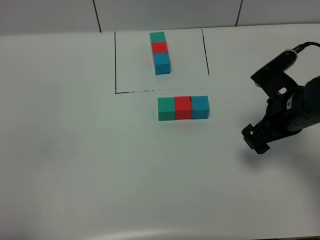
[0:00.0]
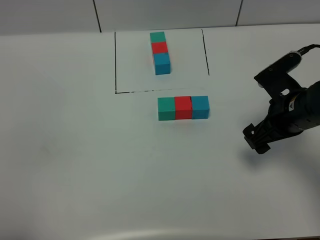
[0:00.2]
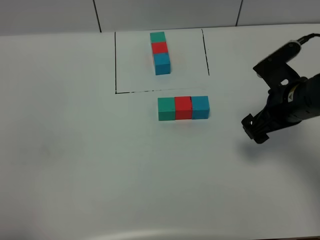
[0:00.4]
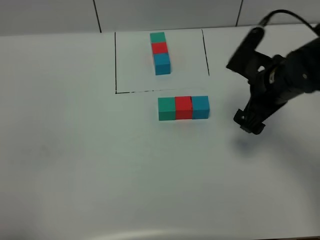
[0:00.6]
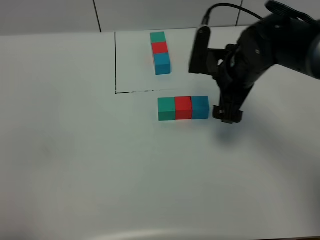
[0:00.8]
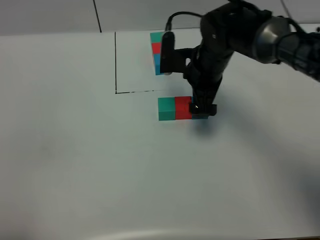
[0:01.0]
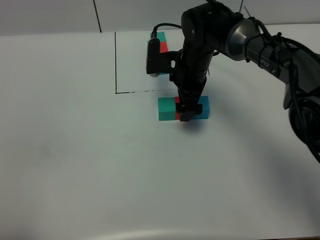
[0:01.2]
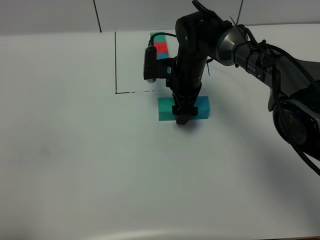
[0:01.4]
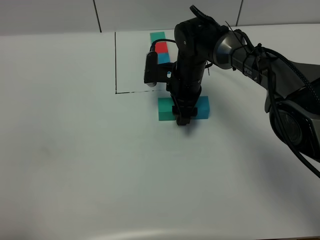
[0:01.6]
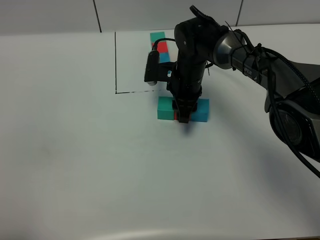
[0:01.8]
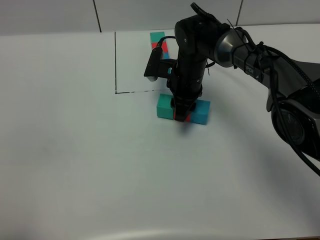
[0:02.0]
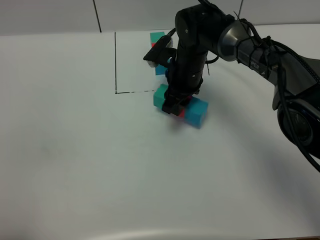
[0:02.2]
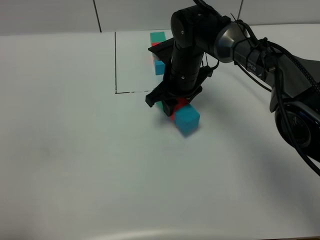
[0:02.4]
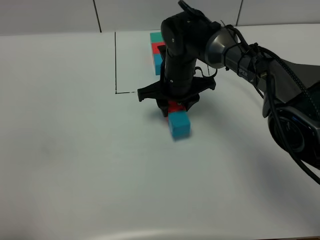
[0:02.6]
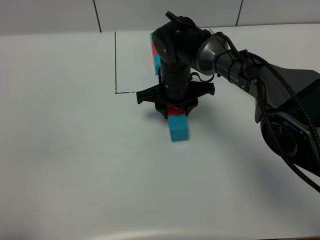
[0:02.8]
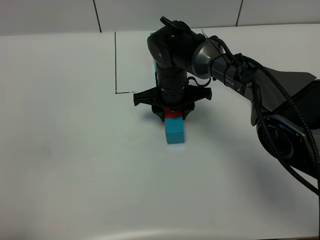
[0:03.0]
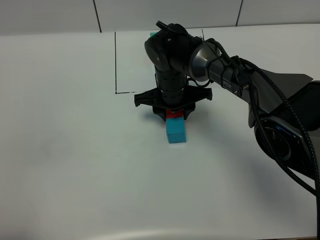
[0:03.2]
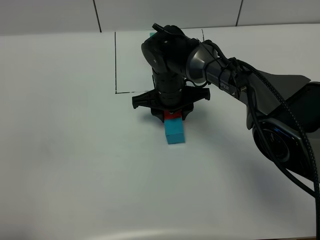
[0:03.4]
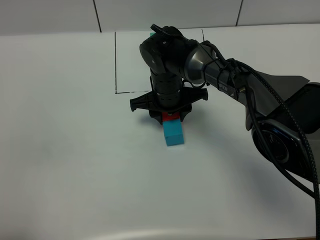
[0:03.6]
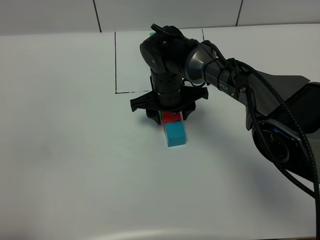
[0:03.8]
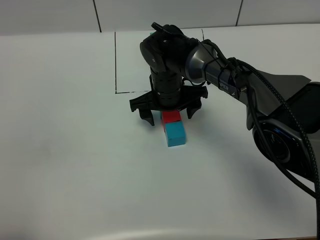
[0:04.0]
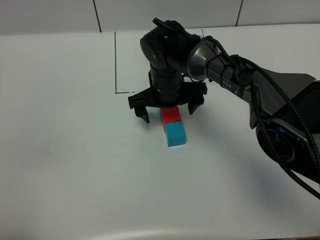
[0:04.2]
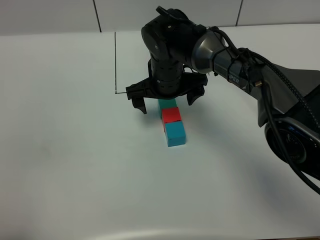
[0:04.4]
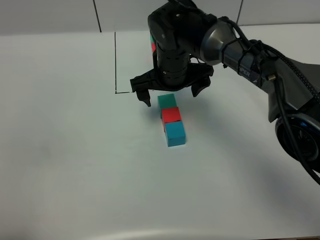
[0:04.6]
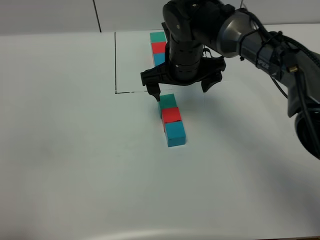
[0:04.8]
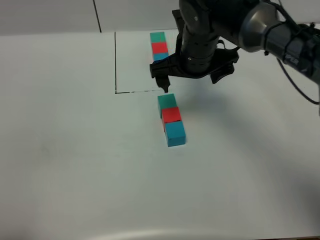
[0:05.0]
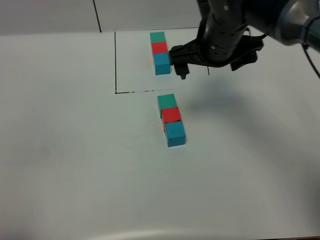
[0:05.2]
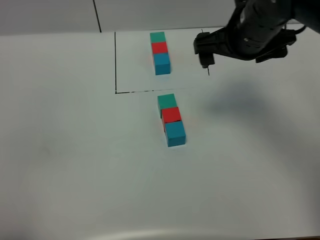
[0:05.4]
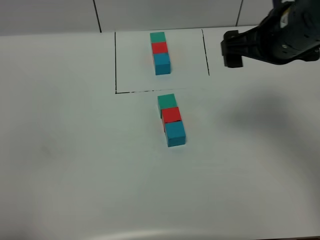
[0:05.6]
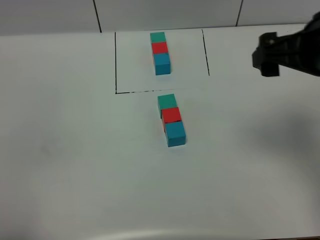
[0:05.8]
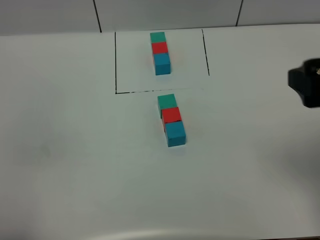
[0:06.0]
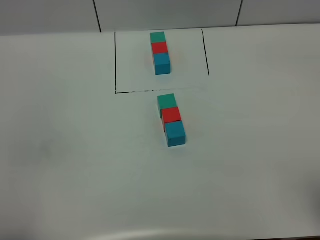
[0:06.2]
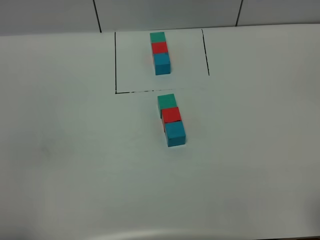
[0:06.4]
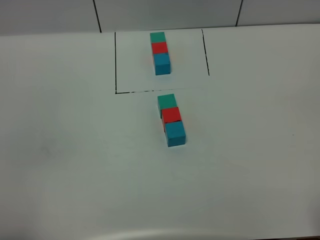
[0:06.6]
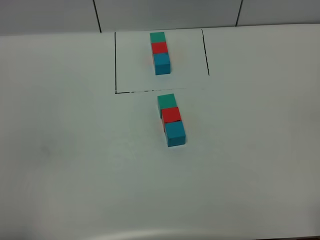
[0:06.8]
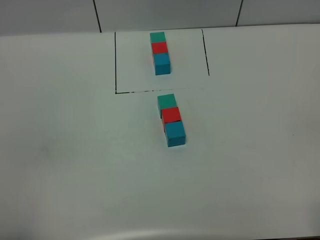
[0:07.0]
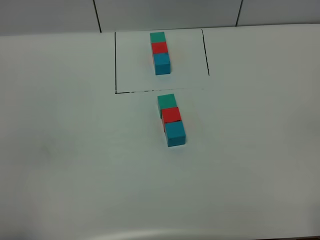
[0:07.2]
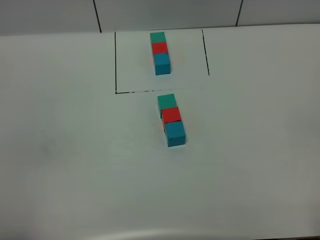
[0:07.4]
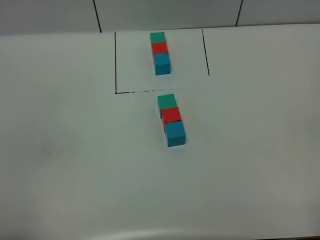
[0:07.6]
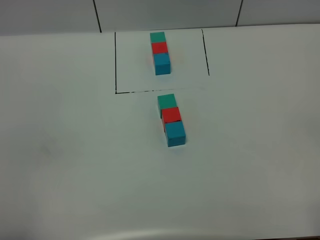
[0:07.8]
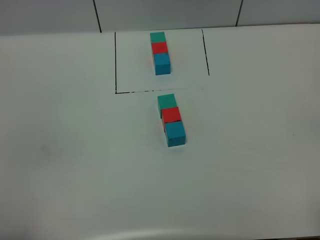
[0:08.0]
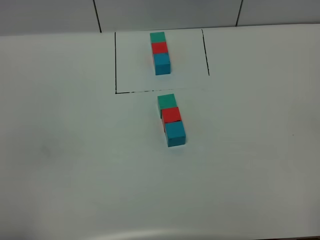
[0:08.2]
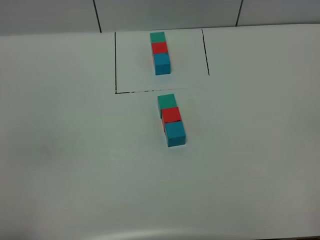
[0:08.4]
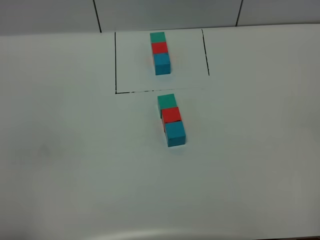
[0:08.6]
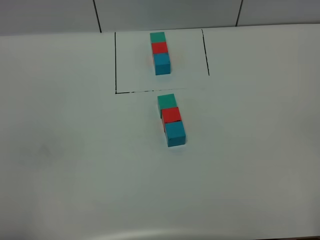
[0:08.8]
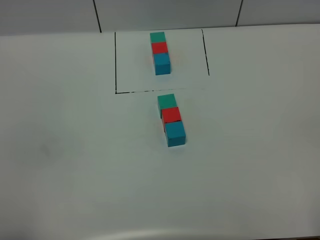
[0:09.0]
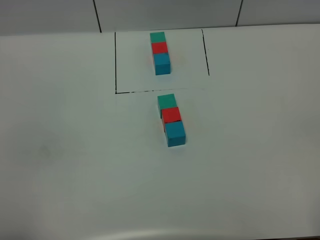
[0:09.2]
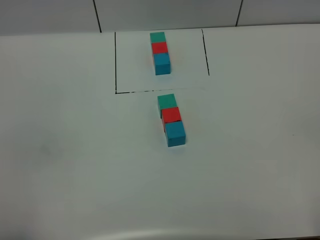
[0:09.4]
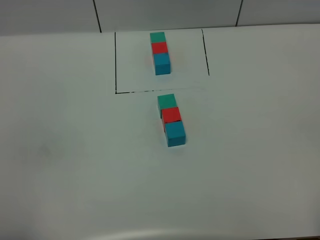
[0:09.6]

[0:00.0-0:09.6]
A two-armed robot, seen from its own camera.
Task of the whole recording: According to the building block template in front, assemble the scattered blocks together.
Step, 0:00.0 to 0:04.2: Adjust the pose of the building blocks.
0:00.0 to 0:01.6: The right gripper travels to the left and forward by approximately 20 cm, and closes its fingers.
0:01.6 to 0:03.2: The right gripper moves about 5 cm.
0:03.2 to 0:04.8: The right gripper heads upward, covering about 10 cm, and opens.
0:04.8 to 0:06.4: The right gripper goes some 40 cm backward and to the right.

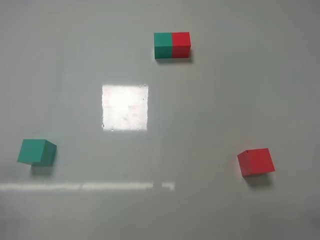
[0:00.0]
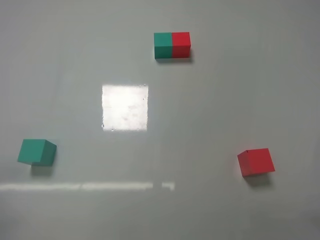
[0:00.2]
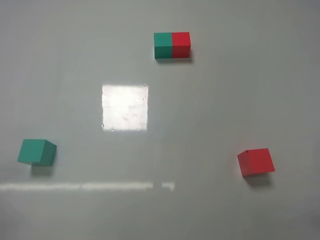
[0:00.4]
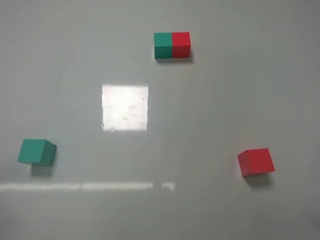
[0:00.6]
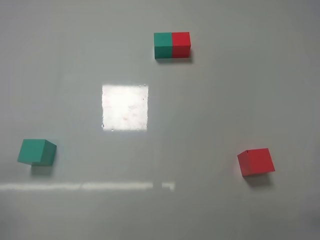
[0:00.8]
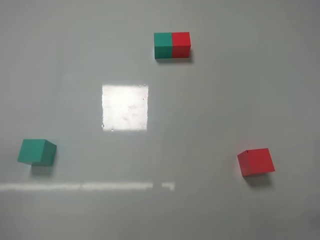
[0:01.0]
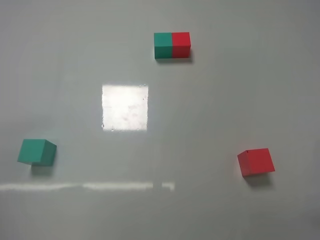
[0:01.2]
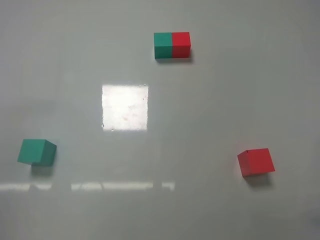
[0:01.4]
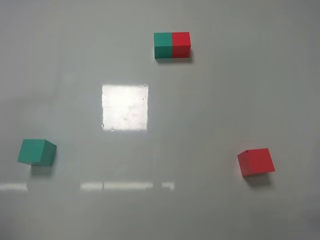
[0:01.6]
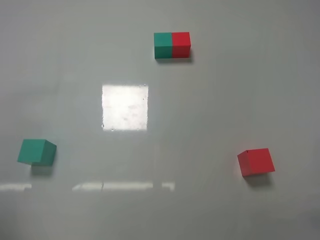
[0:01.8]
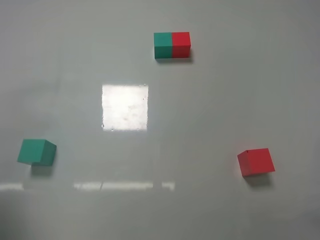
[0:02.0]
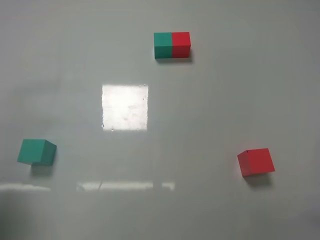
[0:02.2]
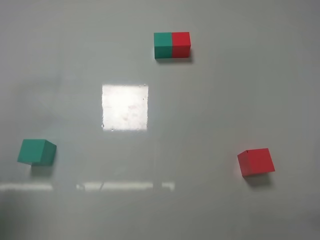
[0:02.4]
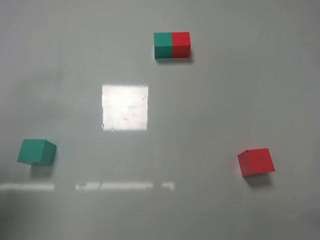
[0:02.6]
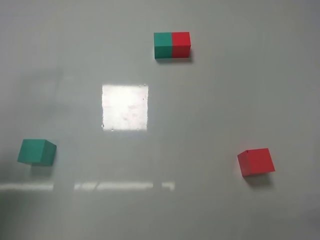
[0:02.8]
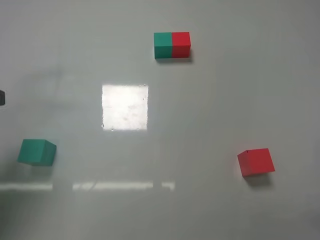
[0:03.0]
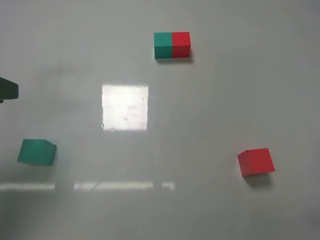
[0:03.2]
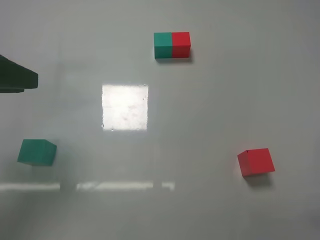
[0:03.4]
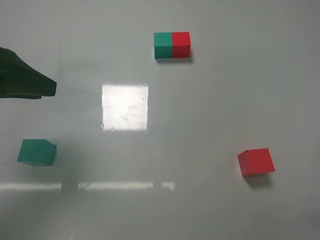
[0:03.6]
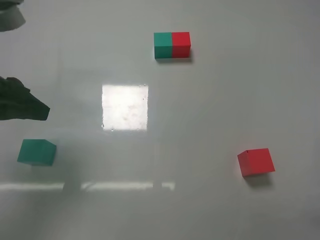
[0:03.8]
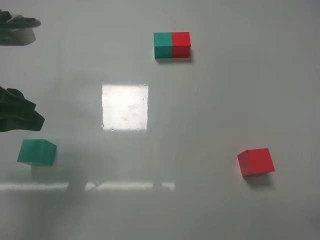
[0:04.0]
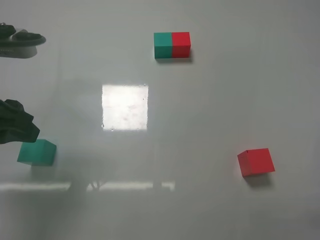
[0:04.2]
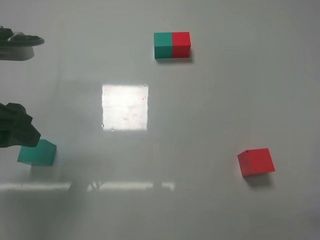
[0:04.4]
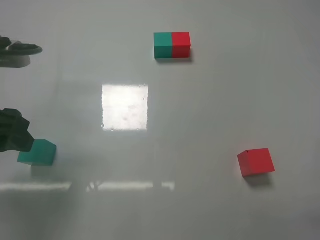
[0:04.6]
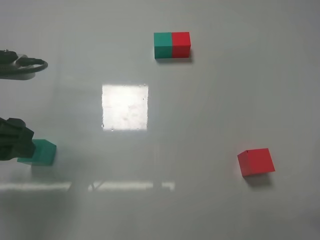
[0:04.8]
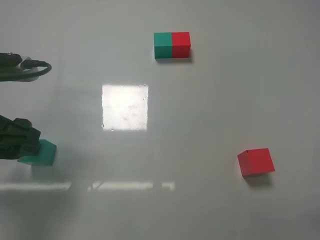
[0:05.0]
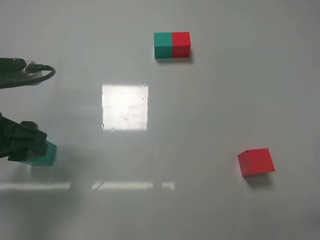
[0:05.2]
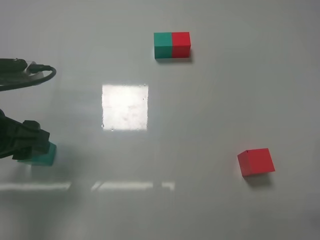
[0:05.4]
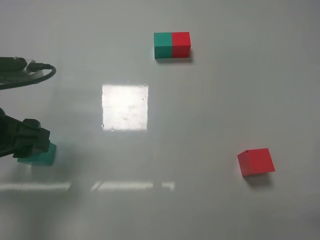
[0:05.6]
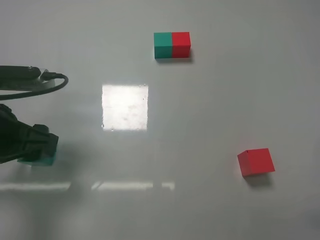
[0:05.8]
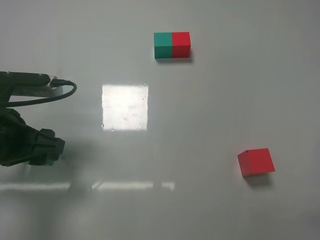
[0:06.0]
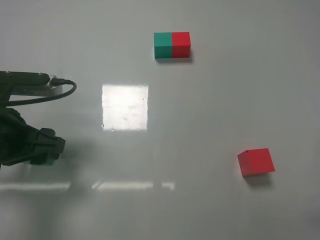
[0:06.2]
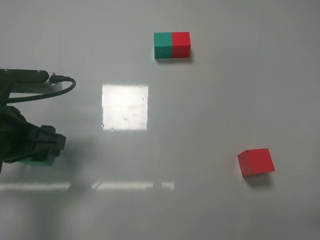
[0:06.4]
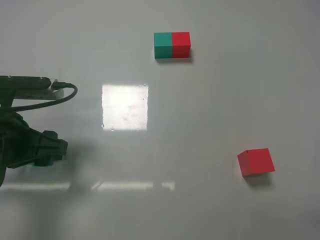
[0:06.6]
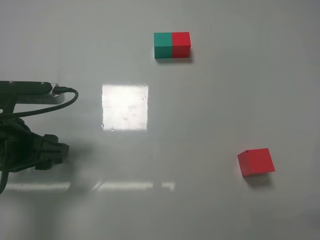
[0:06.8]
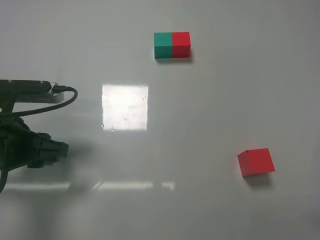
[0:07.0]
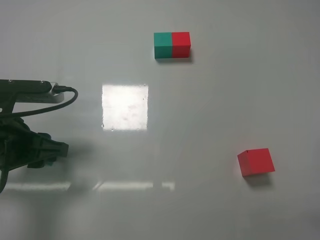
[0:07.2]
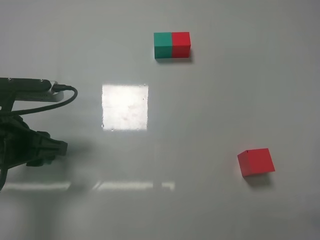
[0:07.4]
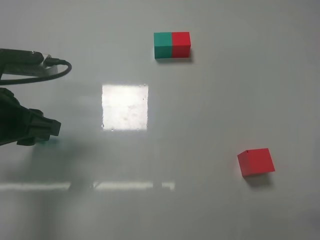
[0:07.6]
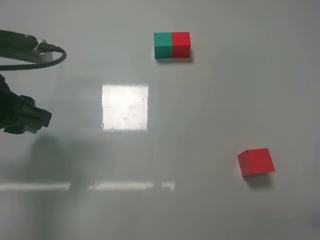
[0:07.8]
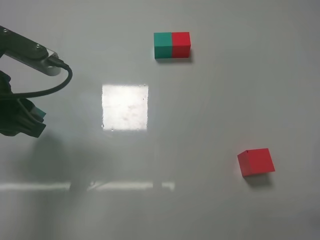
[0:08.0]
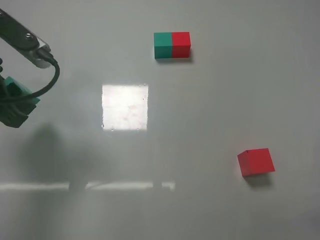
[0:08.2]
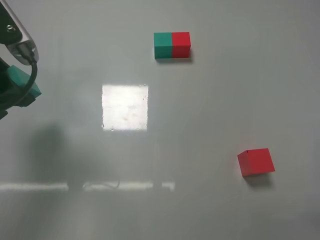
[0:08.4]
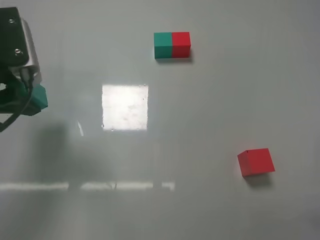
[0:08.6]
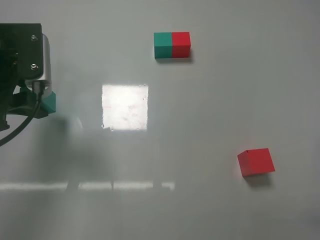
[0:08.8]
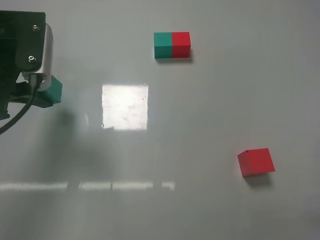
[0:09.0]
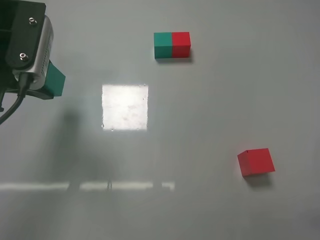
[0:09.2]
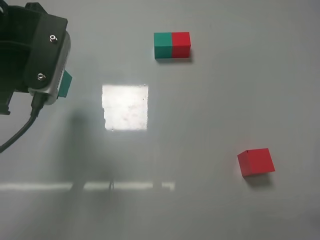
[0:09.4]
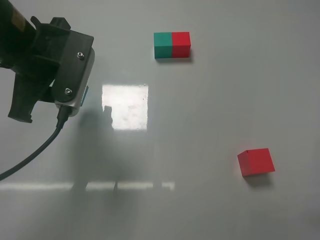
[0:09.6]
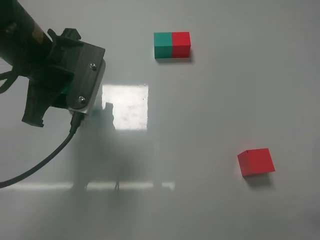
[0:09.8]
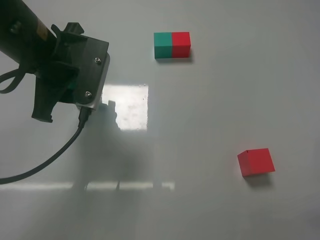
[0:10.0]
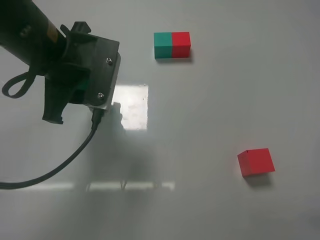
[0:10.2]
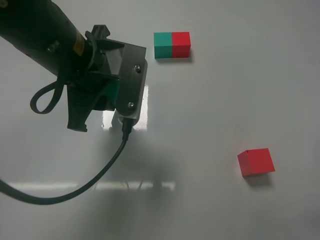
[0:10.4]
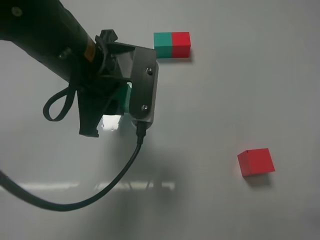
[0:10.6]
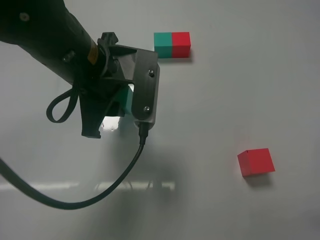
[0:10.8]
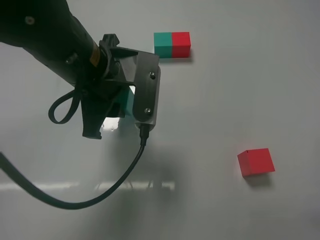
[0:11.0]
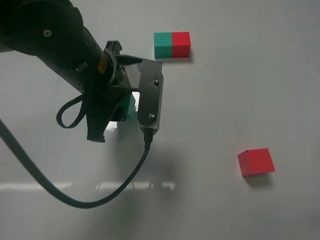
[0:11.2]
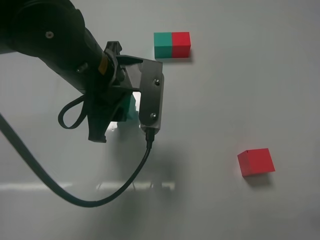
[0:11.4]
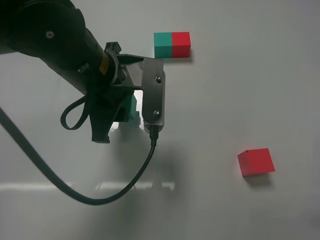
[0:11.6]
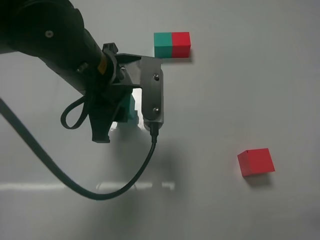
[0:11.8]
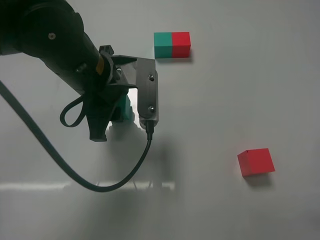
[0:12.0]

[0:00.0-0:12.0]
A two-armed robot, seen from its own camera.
Task of the whole recording: According to the building block template in front, assemble the scattered blocks together.
Step, 0:00.0 to 0:07.0: Grasp the green block with left gripper.
0:01.6 to 0:03.0: The left gripper travels forward by roughly 10 cm, and closes up.
0:03.0 to 0:04.4: The left gripper shifts approximately 5 cm to the right, and opens up.
0:04.4 to 0:06.0: The left gripper shifts approximately 5 cm downward.
0:06.0 to 0:07.6: The left gripper closes its fingers.
0:07.6 to 0:09.0: The left gripper goes approximately 10 cm upward and forward.
0:09.0 to 0:10.4: The left gripper goes roughly 15 cm to the right.
0:10.4 to 0:12.0: The grippers stay close to where they were, moving slightly.

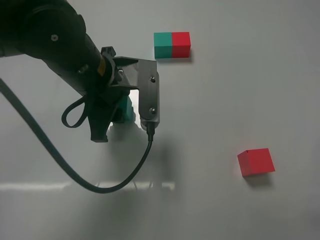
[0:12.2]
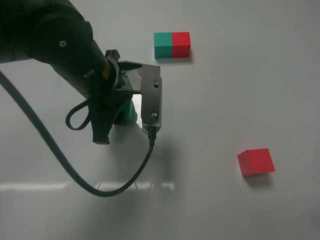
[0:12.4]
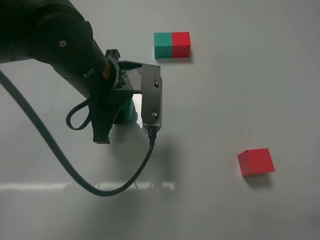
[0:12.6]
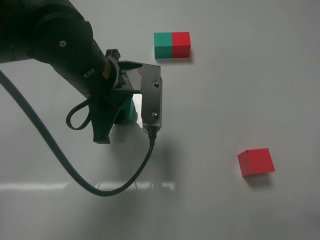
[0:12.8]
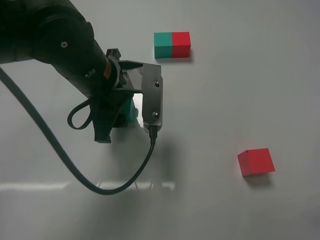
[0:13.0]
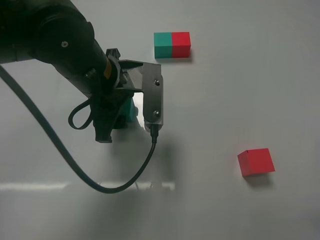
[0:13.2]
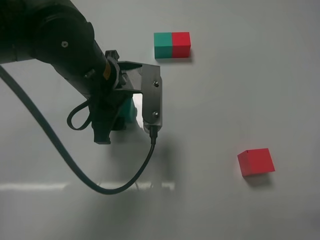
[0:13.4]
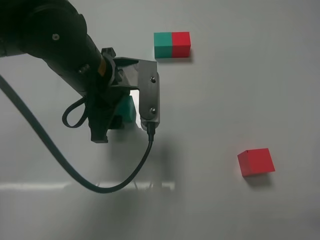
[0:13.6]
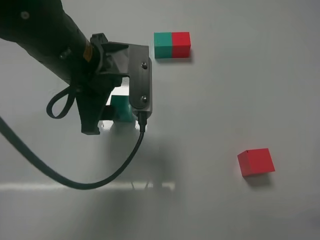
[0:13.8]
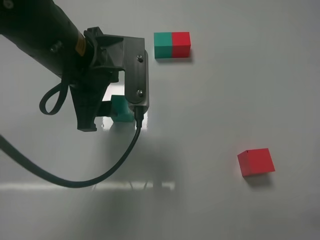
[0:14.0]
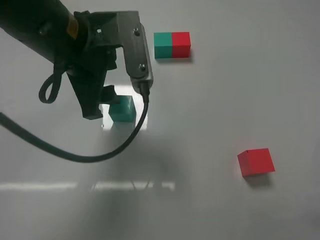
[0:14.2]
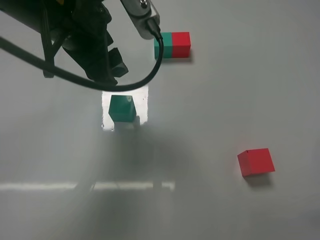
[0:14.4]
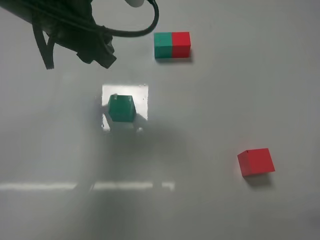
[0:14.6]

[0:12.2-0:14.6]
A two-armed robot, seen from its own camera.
Task of the whole recording: According to the building block template in front, assemble the scattered blocks together.
0:12.2 to 0:13.4: The left gripper opens.
0:13.4 to 0:14.6: The left gripper shifts roughly 10 cm upward.
